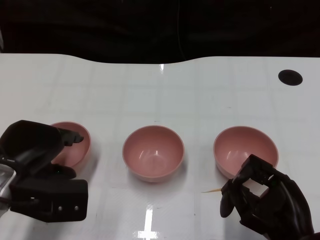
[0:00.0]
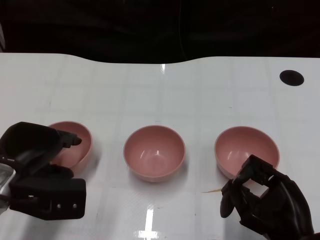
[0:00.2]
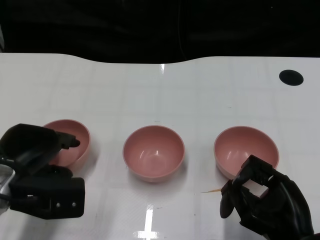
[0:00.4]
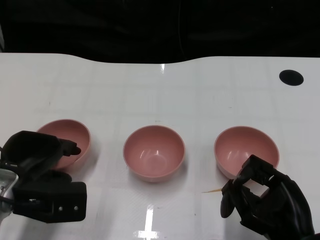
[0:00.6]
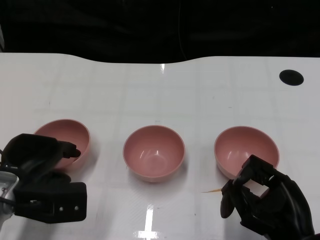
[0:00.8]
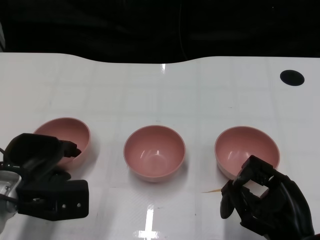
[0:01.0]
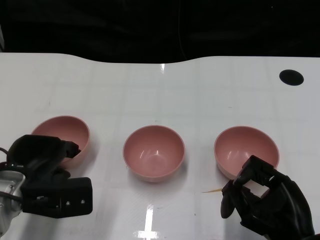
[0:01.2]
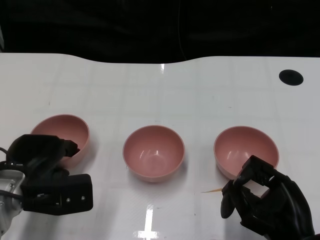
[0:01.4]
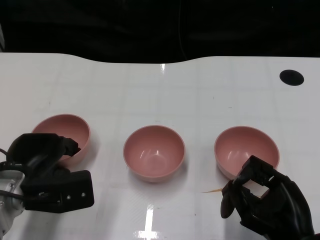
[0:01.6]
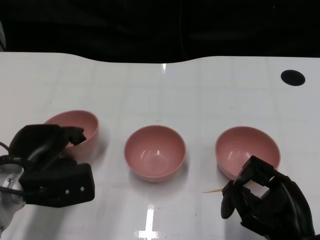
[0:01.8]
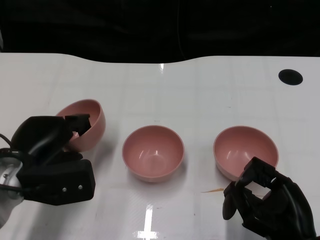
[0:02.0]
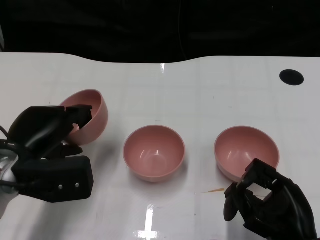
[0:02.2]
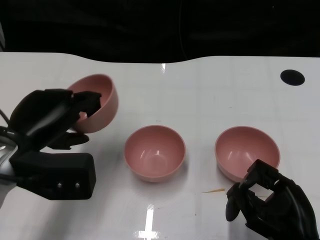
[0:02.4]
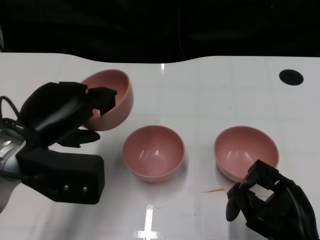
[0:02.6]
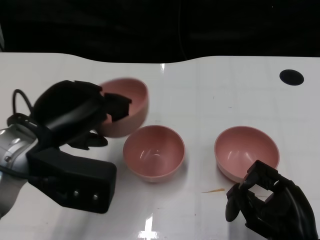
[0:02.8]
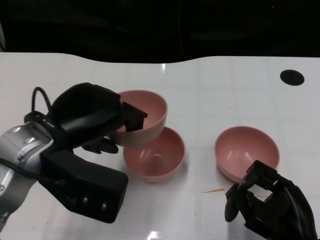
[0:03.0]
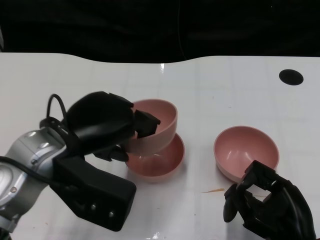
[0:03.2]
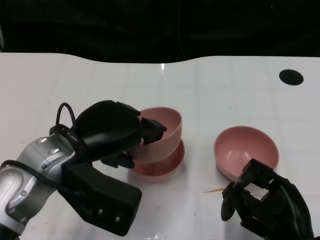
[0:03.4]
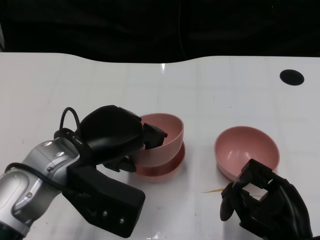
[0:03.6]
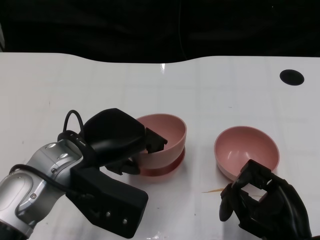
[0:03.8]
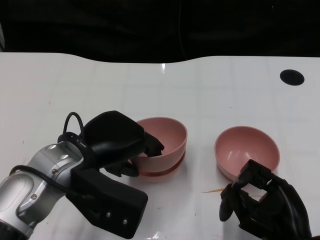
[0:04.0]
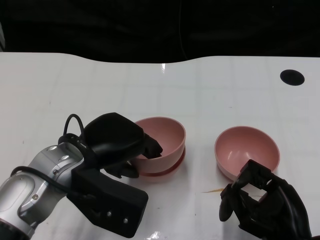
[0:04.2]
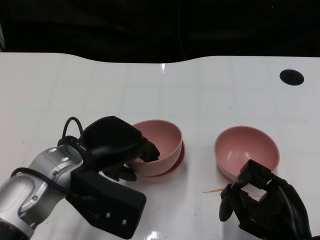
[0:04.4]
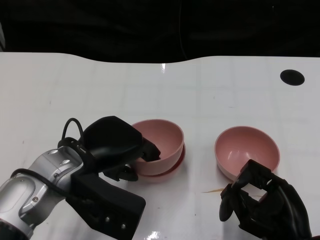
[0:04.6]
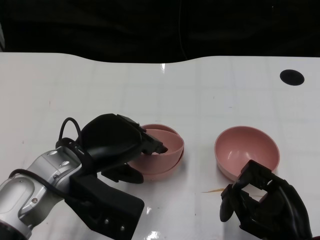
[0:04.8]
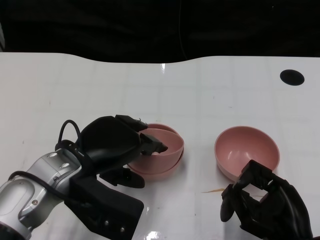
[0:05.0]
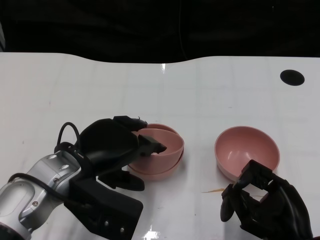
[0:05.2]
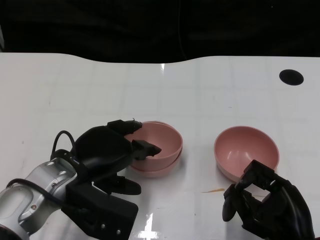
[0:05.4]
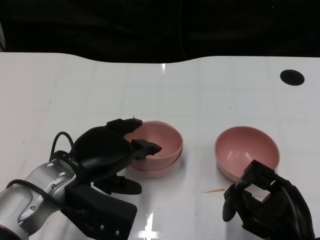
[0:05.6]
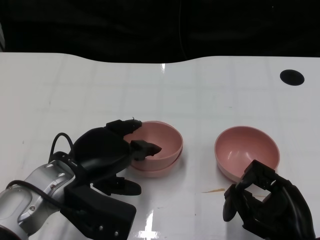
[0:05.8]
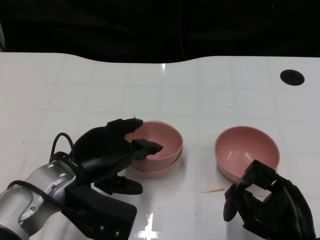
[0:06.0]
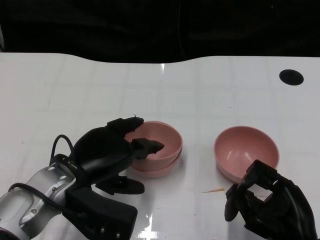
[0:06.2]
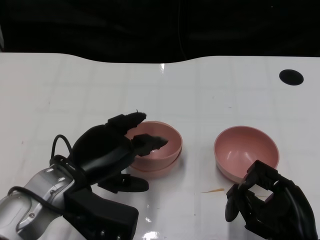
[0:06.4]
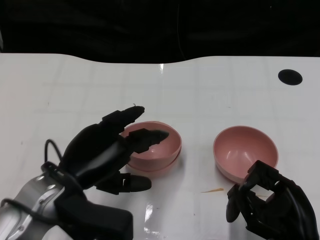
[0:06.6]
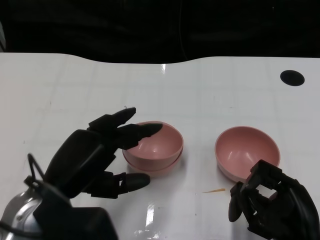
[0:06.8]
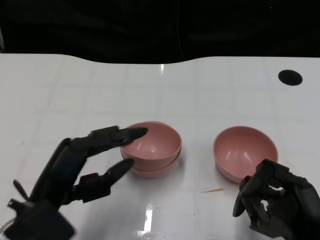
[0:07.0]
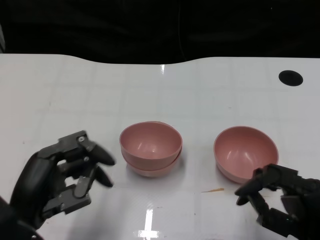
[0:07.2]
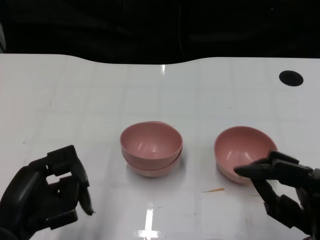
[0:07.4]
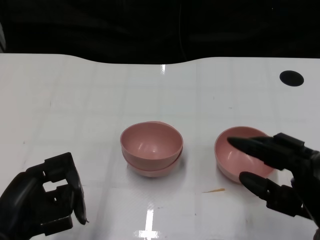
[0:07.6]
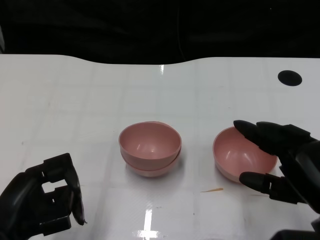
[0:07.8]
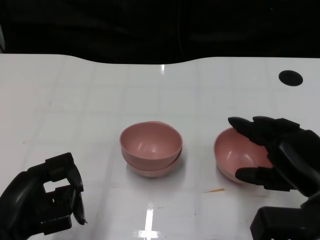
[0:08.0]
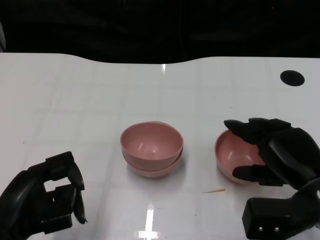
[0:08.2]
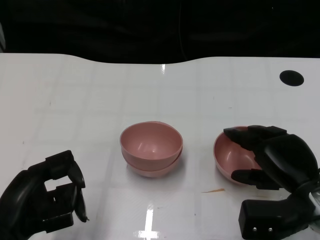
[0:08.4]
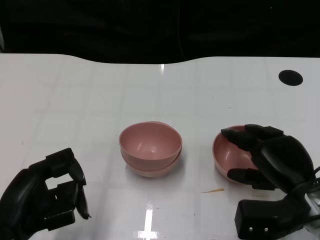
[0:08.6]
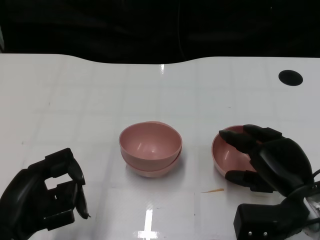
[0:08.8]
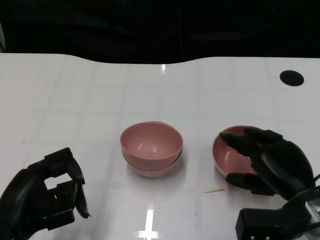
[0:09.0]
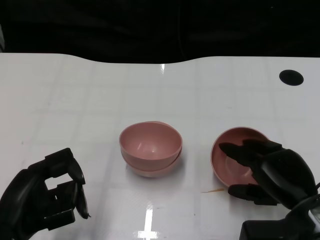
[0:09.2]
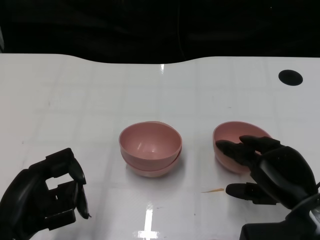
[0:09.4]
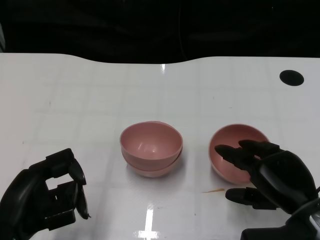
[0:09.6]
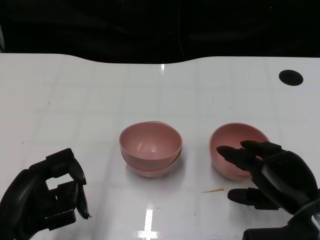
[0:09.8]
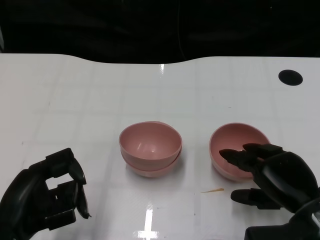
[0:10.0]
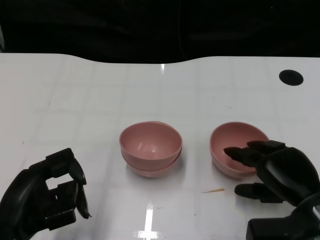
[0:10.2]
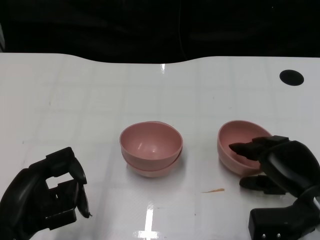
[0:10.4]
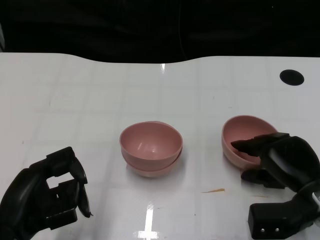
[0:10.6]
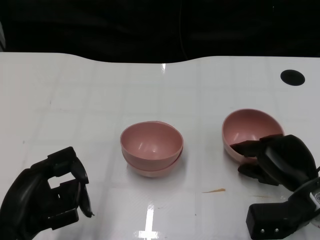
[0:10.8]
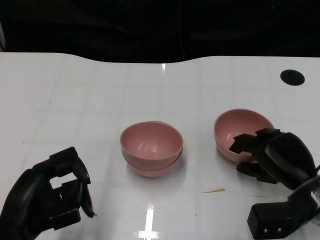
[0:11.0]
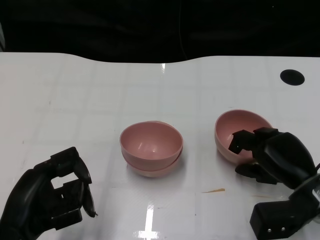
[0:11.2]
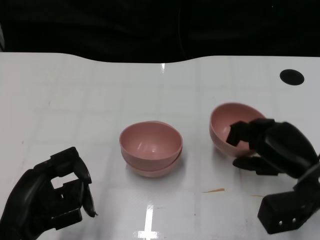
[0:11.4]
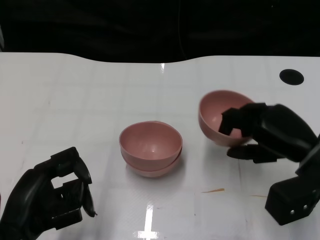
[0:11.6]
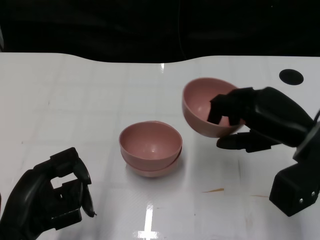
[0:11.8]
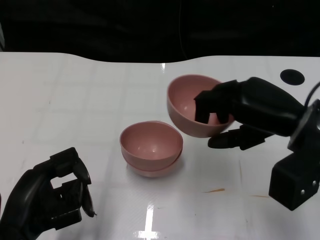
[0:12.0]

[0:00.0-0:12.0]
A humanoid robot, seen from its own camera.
Task of the whole recording: Pick up the bowl on one side of the table and place it on top of the middle bowl, then pick up the bowl on the other side of the table and place it on top of the middle bowls.
Step, 0:02.0 to 0:06.4: Place the bowl on the left onto the bowl in the middle with left gripper.
Step, 0:06.6 to 0:11.4: Grasp the bowl on the right with the right gripper.
0:00.0 to 0:01.6: The hands stay close to where they were, moving slightly.
0:01.6 to 0:03.0: The left hand goes approximately 15 cm upward and to the right.
0:03.0 to 0:04.4: The left hand shifts by roughly 5 cm.
0:04.4 to 0:06.0: The hands move only a little.
0:06.0 to 0:07.6: The right hand changes place by some 5 cm, while the left hand shifts approximately 15 cm backward and to the left.
0:07.6 to 0:09.0: The right hand is displaced forward by some 5 cm.
0:09.0 to 0:10.4: The hands move only a little.
0:10.4 to 0:12.0: The right hand heads upward, covering approximately 10 cm.

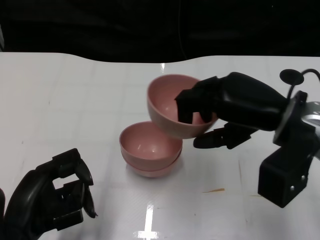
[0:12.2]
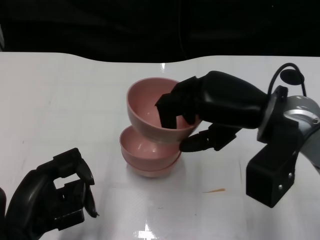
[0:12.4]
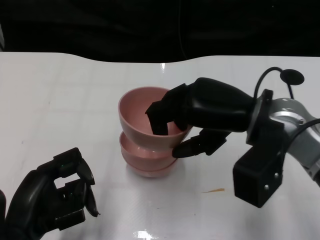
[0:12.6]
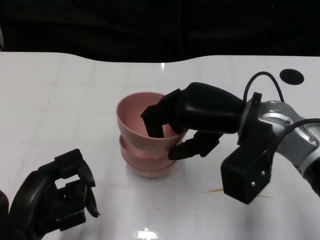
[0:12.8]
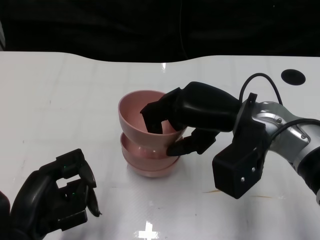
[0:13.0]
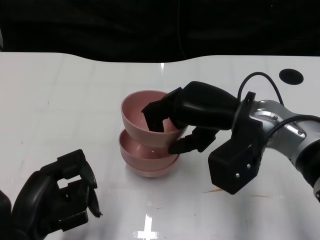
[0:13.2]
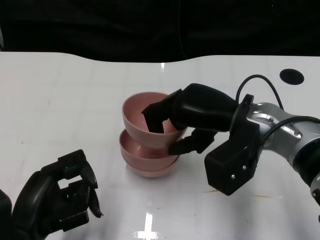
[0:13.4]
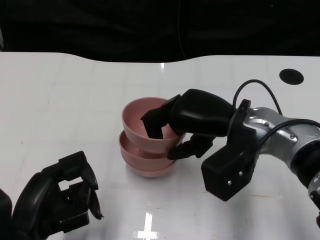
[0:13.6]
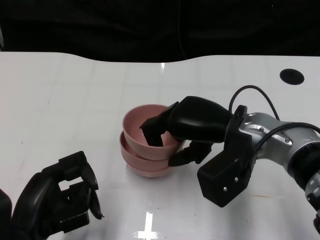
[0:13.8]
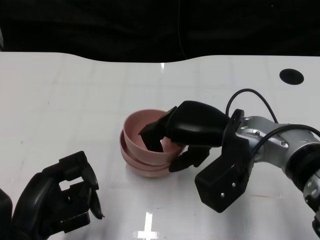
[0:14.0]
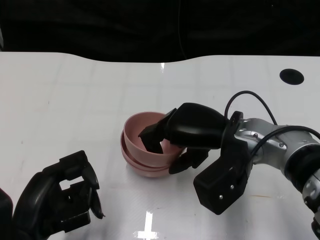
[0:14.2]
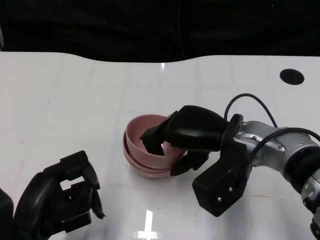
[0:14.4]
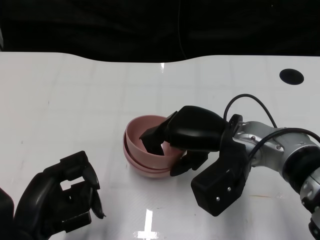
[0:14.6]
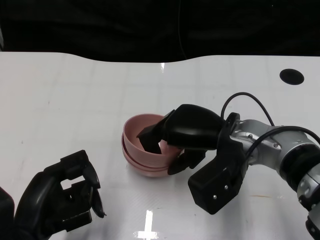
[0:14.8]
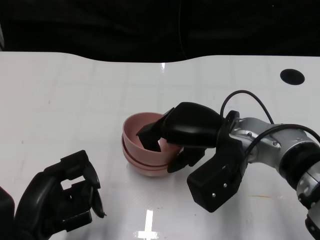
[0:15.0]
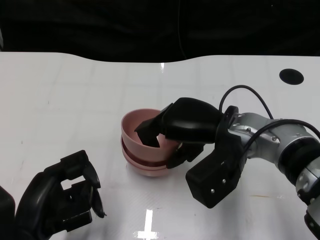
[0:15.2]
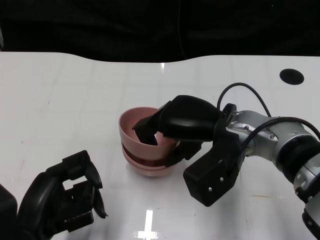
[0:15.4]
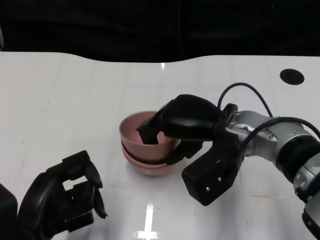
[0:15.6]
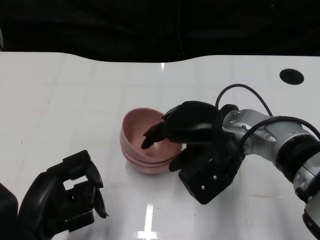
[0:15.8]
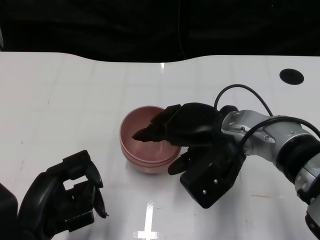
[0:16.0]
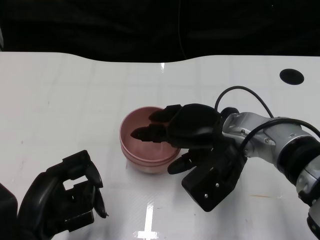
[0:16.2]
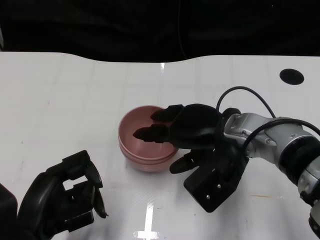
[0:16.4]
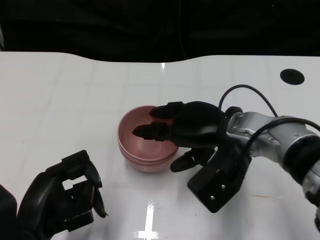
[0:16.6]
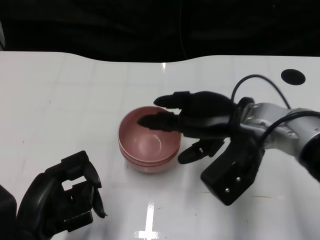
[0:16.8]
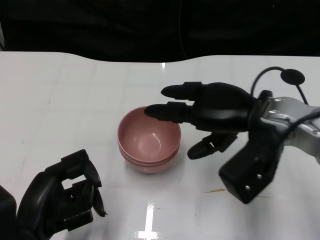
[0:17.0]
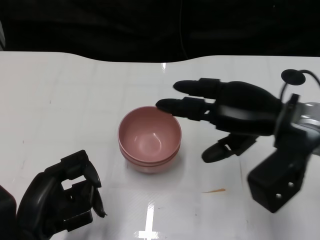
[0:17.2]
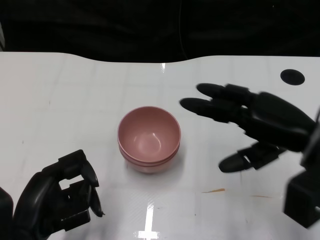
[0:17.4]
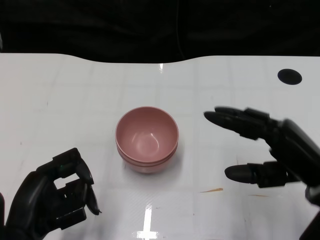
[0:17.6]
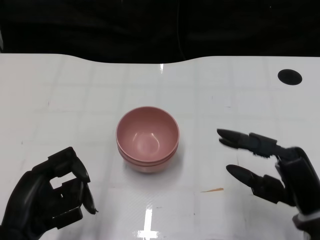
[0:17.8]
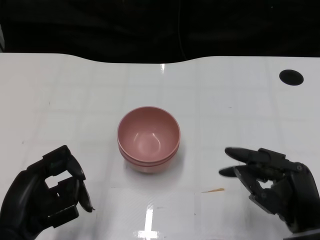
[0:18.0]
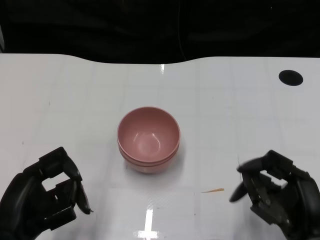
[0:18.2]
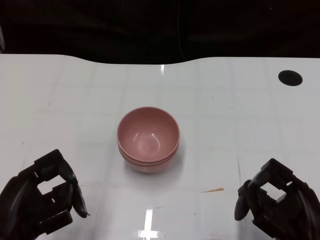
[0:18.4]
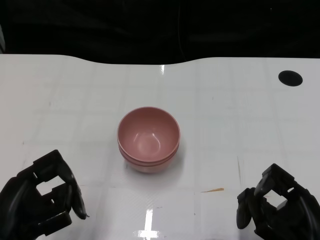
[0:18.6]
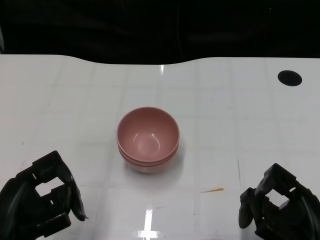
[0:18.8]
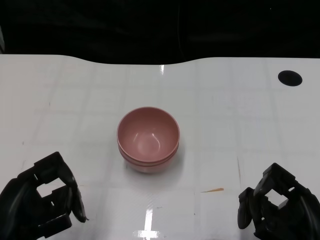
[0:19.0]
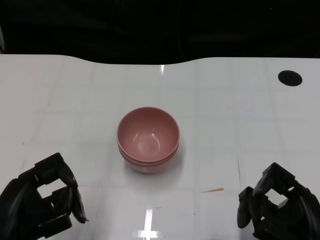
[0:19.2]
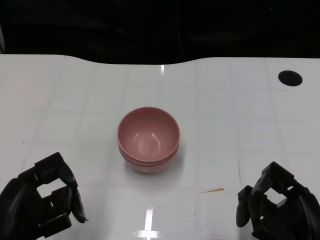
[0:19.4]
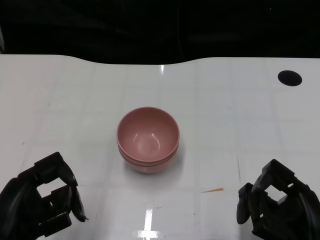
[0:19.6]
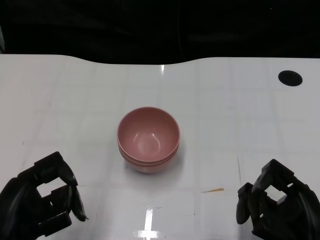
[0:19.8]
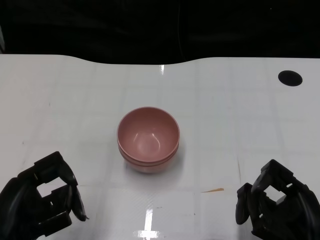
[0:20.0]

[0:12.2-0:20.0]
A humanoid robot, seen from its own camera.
Task of the whole recording: Pick up the bowl on one side of the table and place it on top of the middle bowl, then pick up the bowl on the other side of the table and place it on top of the middle bowls.
Step, 0:12.2 to 0:16.6: Place the bowl on the right onto the bowl in the middle with right gripper.
0:12.2 to 0:13.8: The right hand moves to the left, about 5 cm.
0:13.8 to 0:15.4: The hands move only a little.
0:16.8 to 0:18.4: The right hand travels backward, downward and to the right by approximately 20 cm.
0:18.4 to 0:20.0: Both hands stay about where they are.
